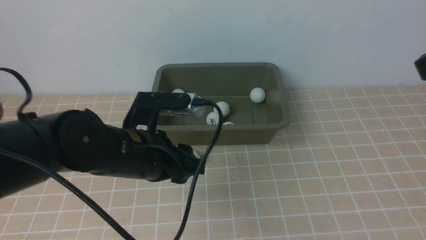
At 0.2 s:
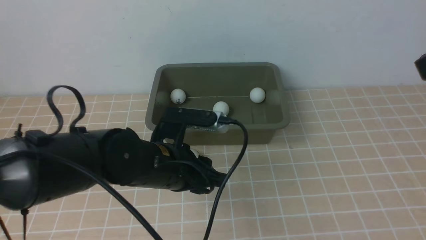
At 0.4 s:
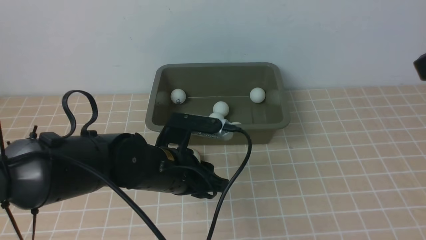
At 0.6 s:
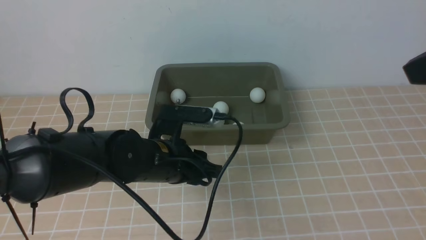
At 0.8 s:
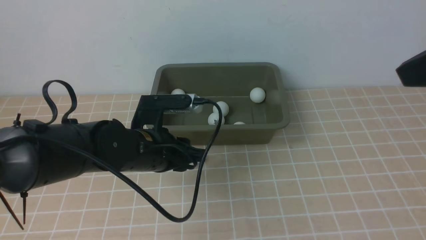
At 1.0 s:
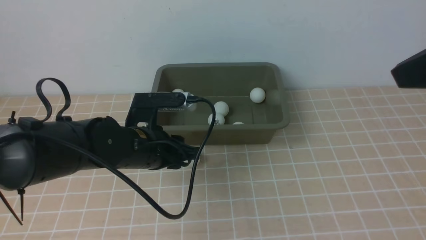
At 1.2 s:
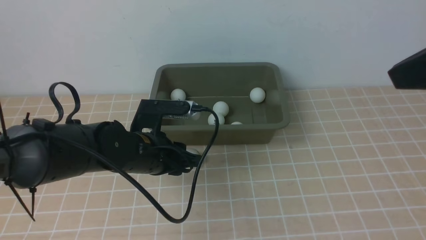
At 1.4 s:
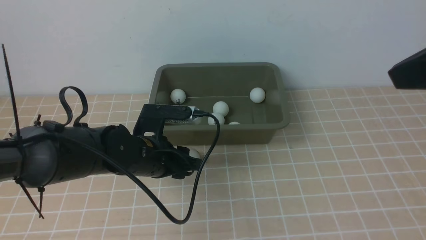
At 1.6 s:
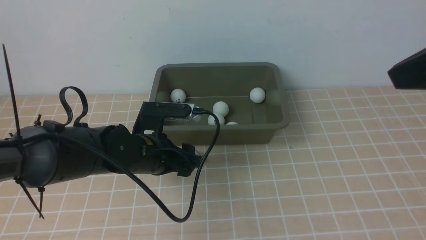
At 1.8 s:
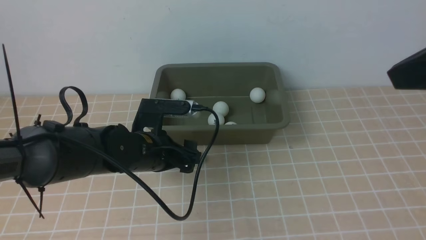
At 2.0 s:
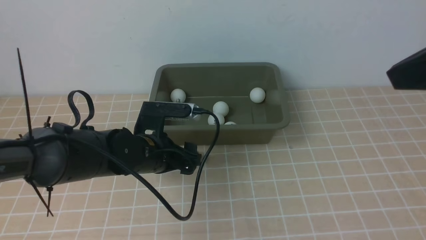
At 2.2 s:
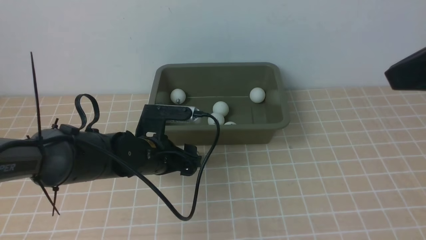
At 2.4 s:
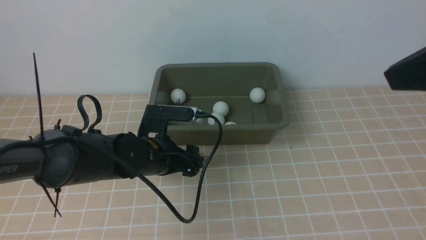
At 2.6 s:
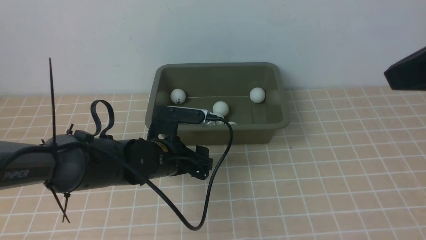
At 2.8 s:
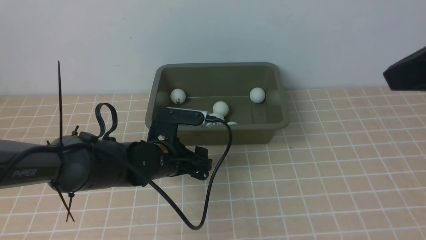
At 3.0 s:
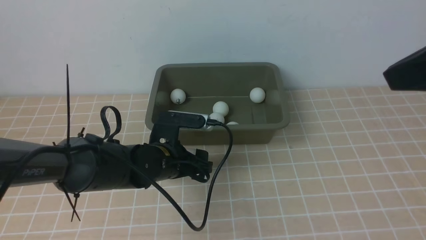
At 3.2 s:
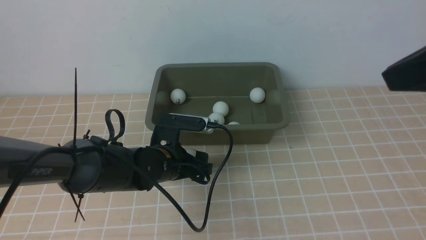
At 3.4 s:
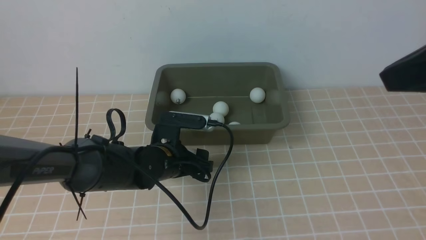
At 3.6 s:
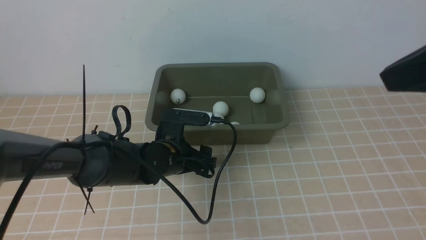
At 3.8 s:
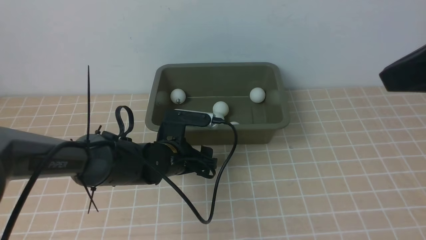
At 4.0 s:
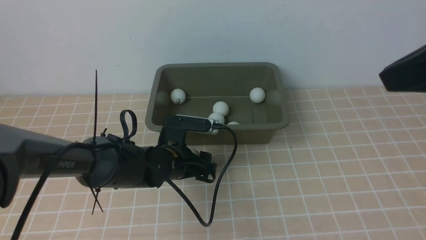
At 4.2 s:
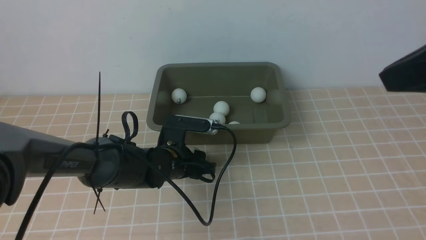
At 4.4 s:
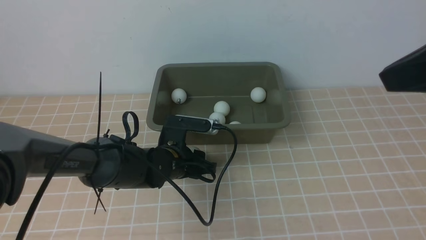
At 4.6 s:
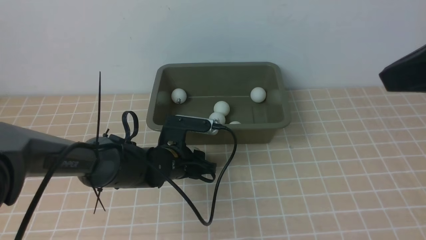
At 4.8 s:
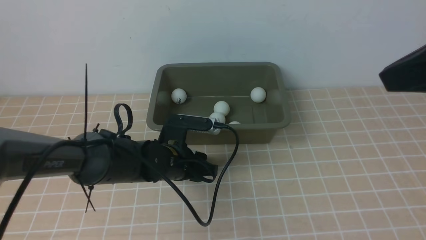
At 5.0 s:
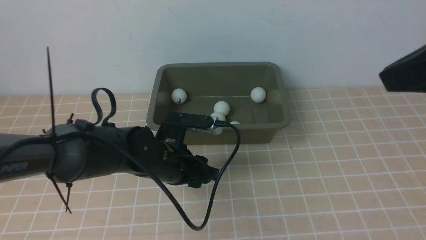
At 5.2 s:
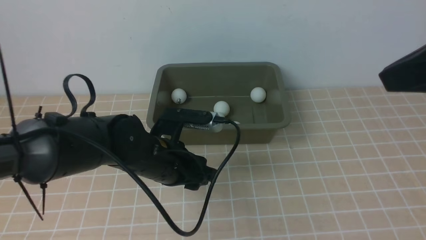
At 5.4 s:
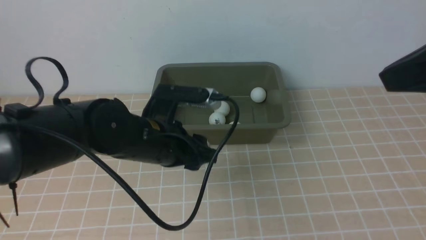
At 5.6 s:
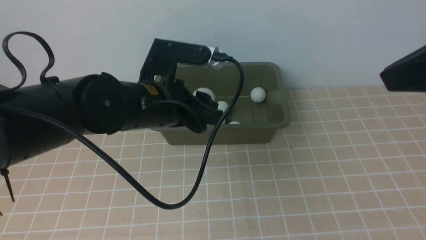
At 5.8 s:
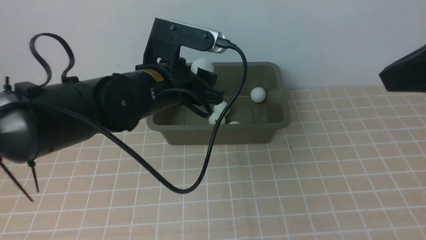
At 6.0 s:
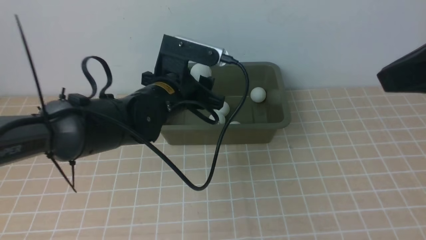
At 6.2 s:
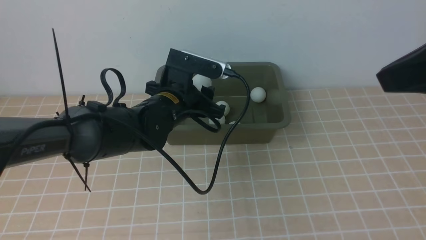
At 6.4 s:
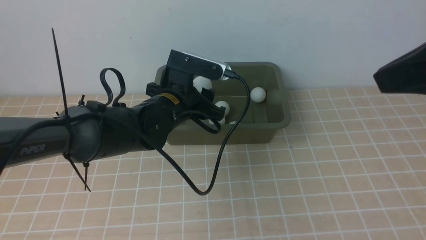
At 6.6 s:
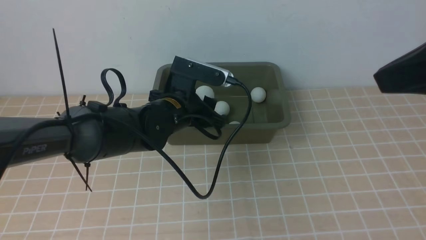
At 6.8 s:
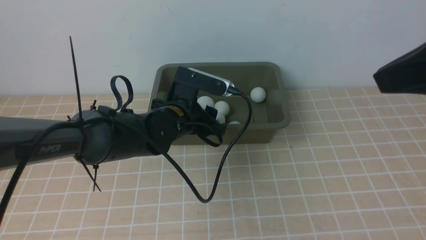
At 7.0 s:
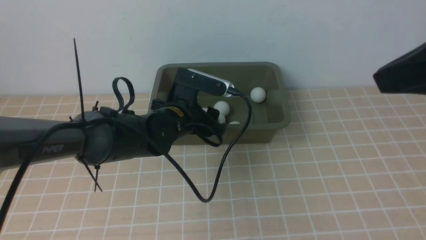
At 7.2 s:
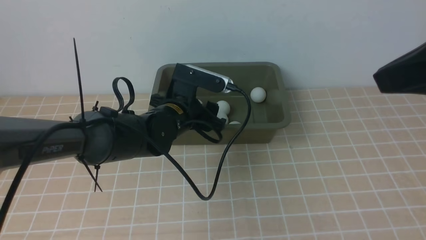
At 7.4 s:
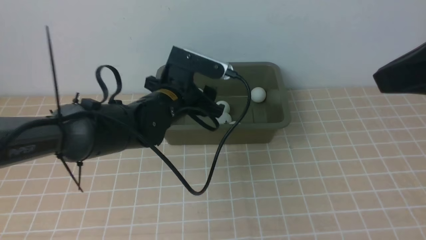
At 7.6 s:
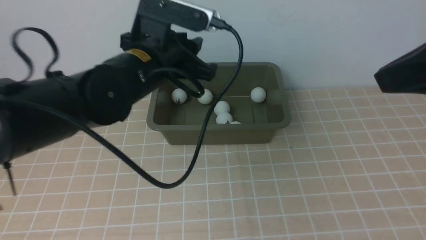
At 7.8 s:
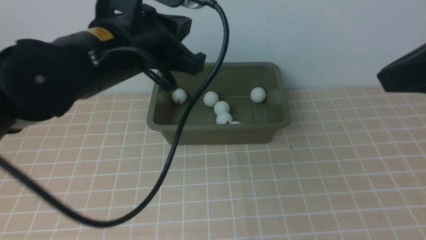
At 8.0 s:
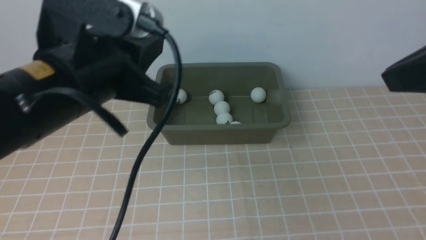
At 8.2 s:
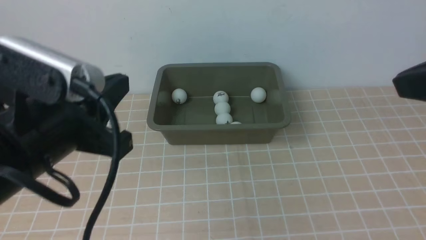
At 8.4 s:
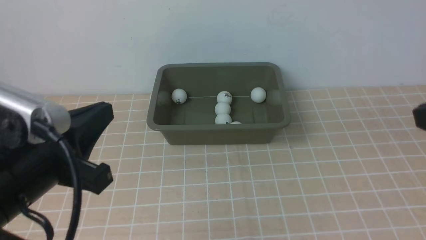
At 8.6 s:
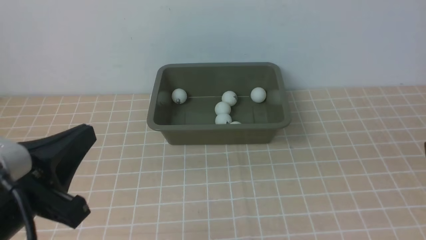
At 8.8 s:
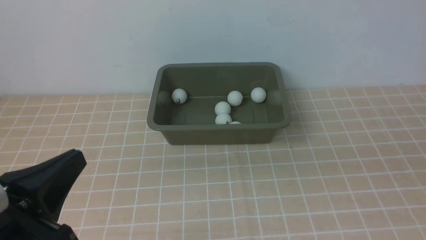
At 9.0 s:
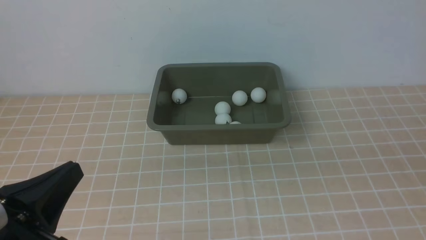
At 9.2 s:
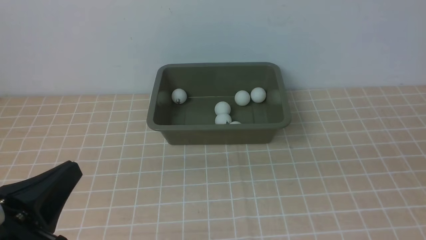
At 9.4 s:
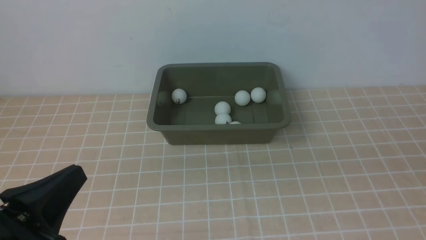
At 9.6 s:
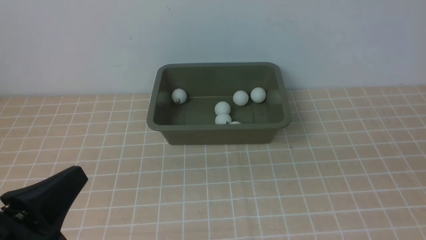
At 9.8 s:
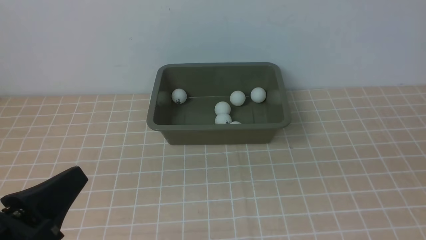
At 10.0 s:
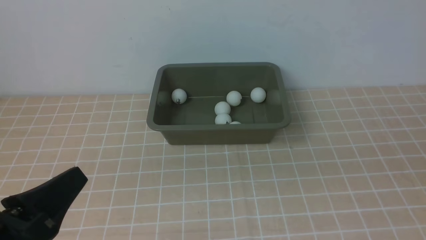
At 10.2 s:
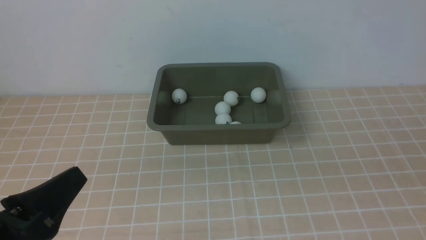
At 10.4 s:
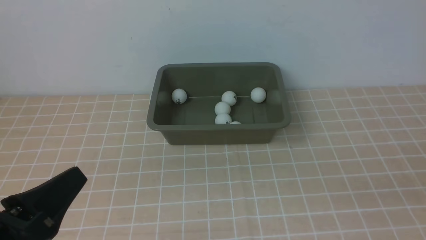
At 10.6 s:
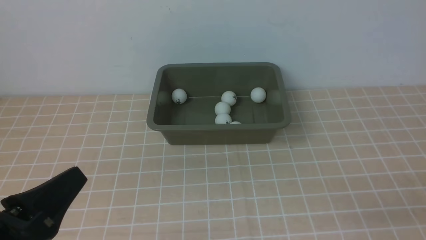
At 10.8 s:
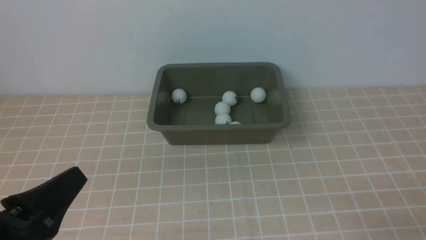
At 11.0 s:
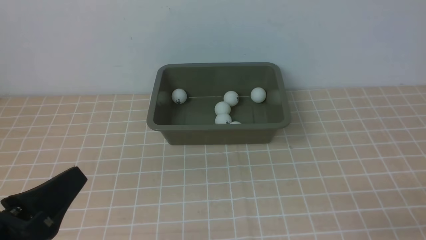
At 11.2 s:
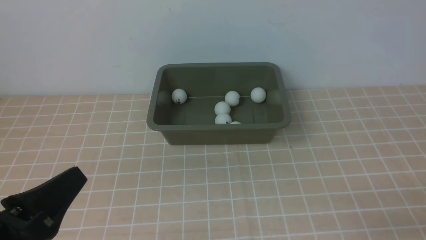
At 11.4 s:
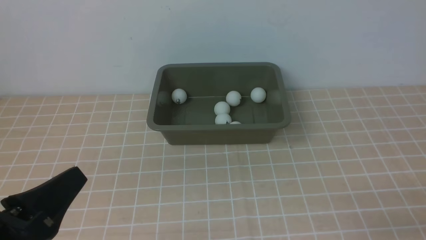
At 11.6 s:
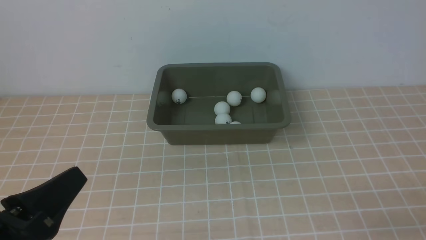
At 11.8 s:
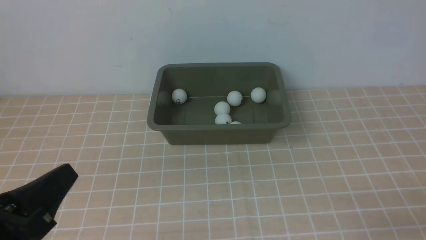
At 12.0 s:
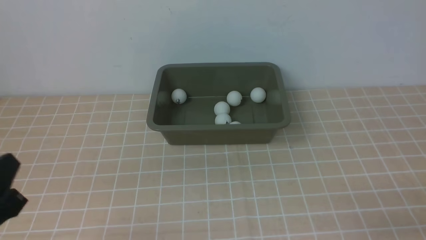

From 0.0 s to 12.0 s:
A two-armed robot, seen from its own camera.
Step, from 0.0 s to 5.2 s: use the left arm to clamp the table tennis ball closest to it.
Step, from 5.4 s to 7.6 s: use the left arm to put the table tennis ball into the box.
From 0.0 s to 1.6 s: The left gripper heads downward, covering some 10 cm.
From 1.6 s to 3.0 s: There are only small adjustments of the grippers.
From 3.0 s to 4.4 s: The left gripper closes its fingers.
From 4.4 s to 6.0 s: The left gripper heads upward, covering approximately 15 cm.
From 6.0 s to 7.6 s: The left gripper goes downward and returns, about 5 cm each way.
From 7.6 s to 9.0 s: The right gripper heads downward, backward and to the right, covering about 15 cm. Meanwhile the left gripper shifts about 25 cm backward and to the left, and closes.

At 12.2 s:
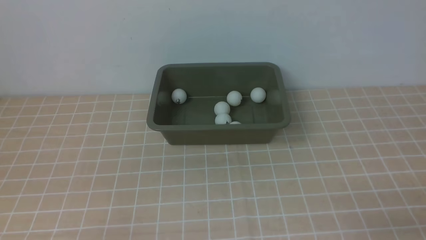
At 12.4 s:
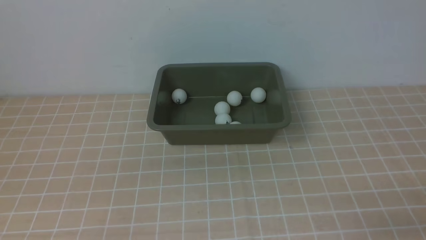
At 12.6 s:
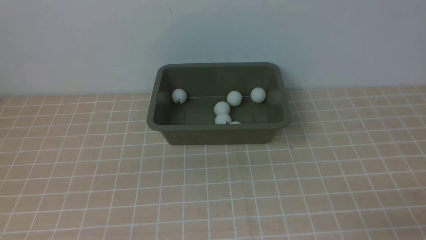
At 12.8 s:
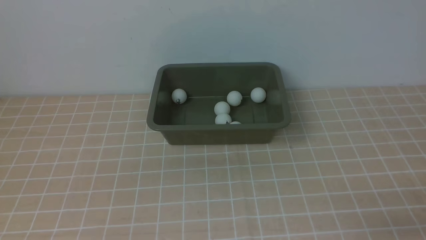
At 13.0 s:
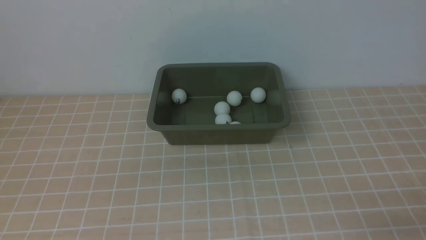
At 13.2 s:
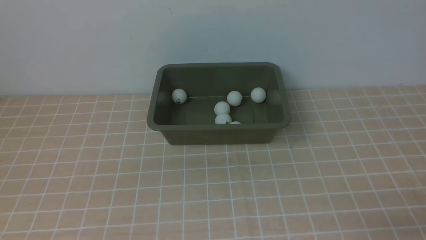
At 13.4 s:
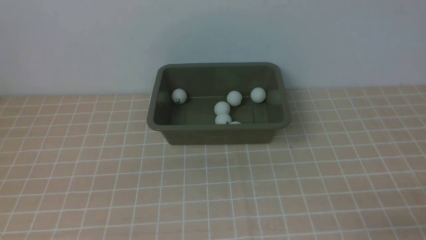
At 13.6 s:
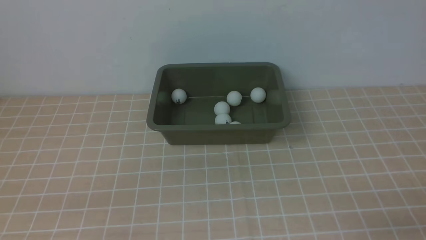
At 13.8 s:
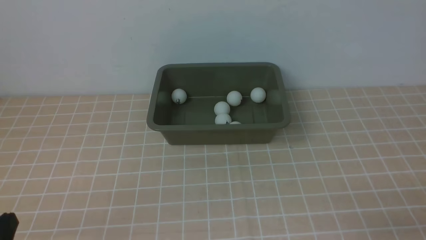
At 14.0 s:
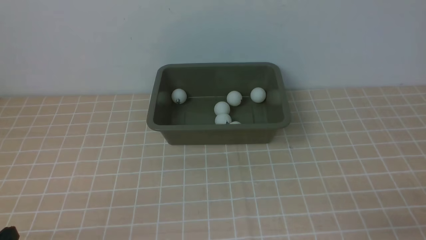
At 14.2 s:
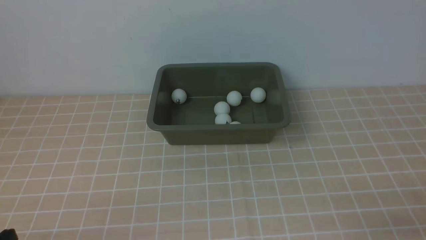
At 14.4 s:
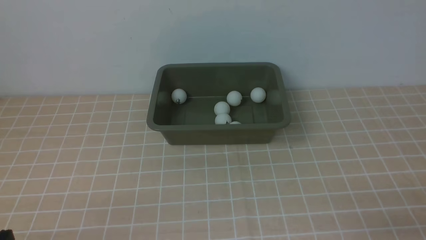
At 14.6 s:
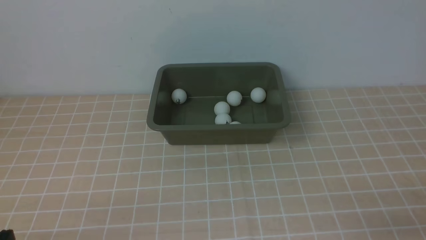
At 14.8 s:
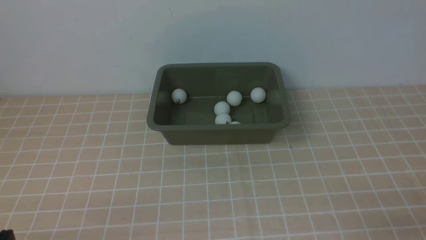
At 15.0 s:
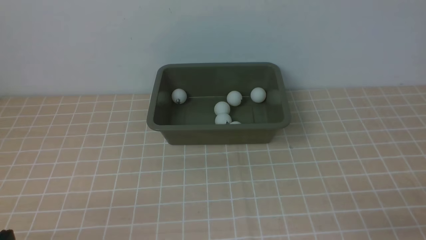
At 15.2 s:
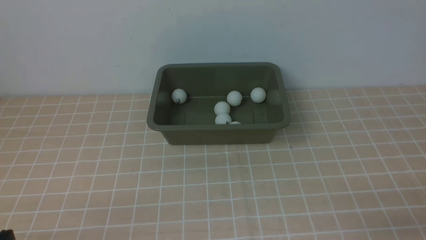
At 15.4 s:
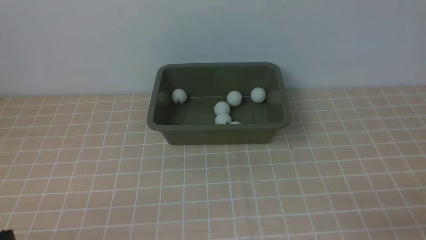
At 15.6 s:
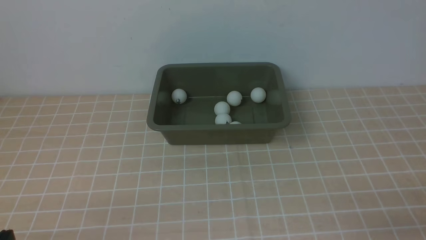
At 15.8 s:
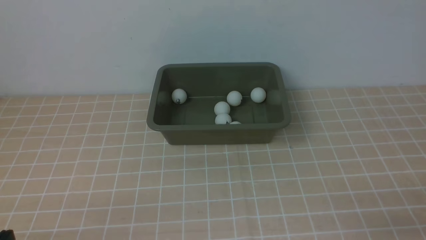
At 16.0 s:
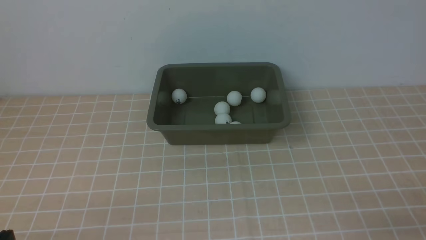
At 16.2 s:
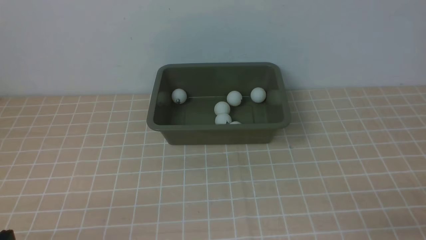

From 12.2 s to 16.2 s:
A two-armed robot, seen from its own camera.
From 14.8 s to 16.2 s: Both grippers stay about where they are.
